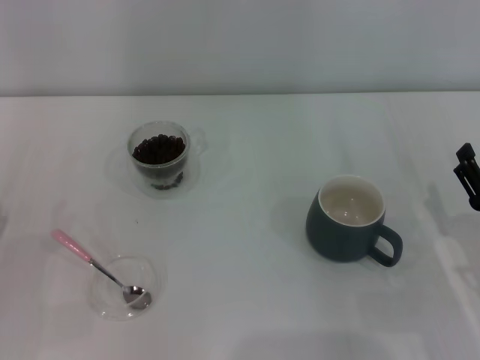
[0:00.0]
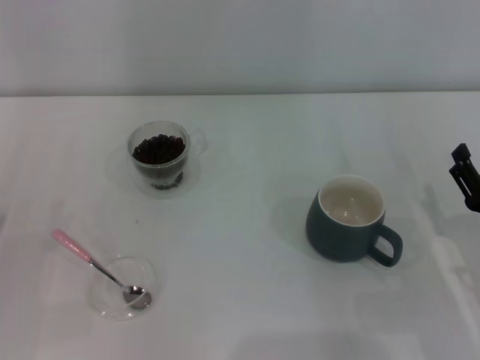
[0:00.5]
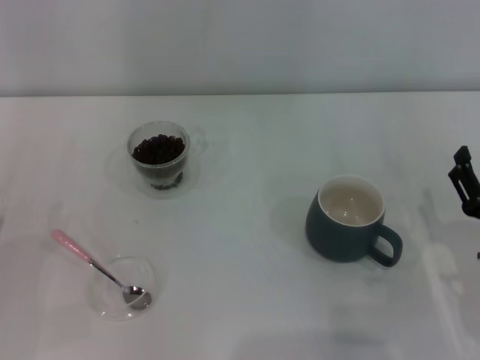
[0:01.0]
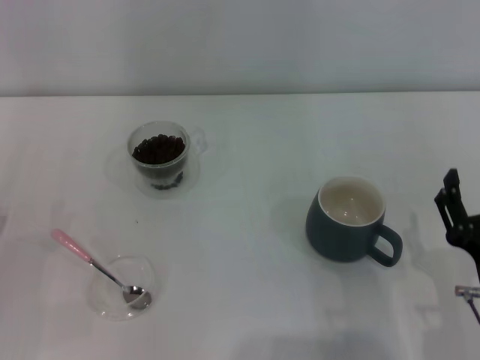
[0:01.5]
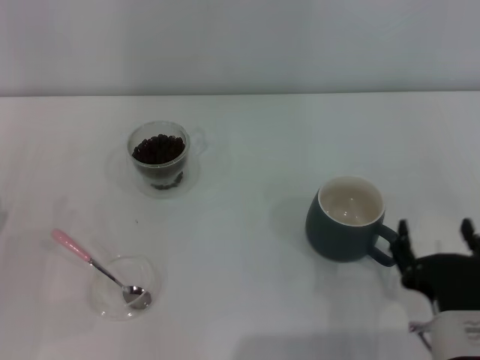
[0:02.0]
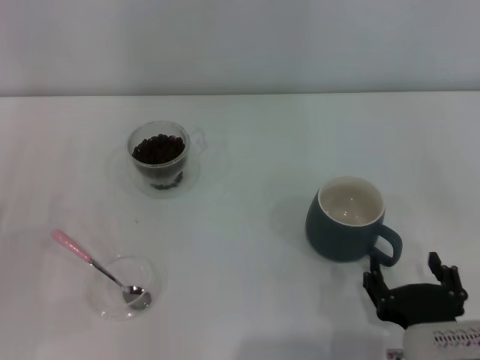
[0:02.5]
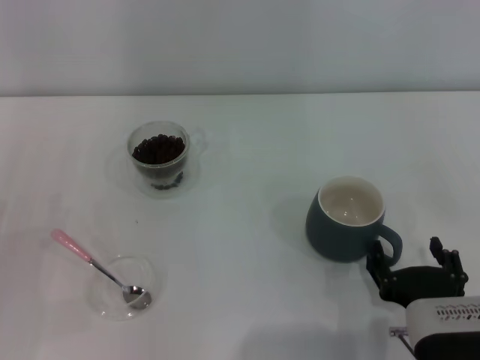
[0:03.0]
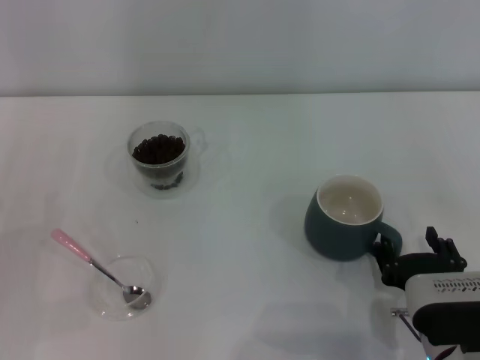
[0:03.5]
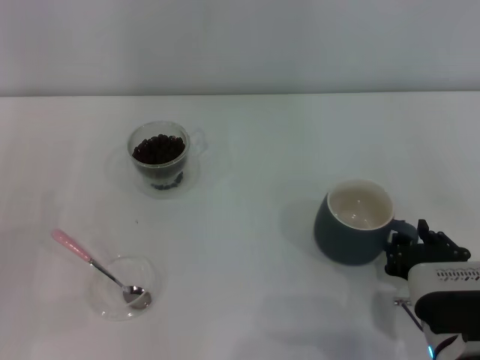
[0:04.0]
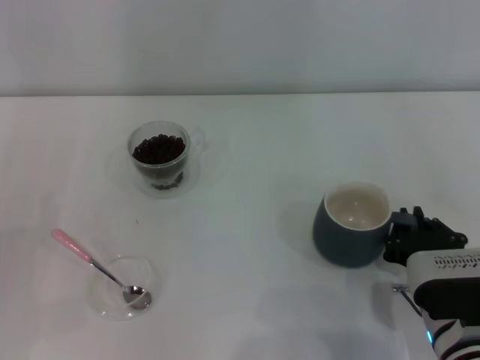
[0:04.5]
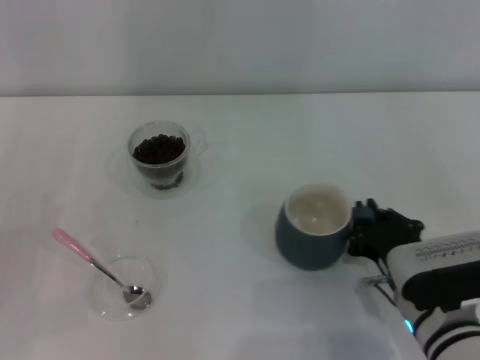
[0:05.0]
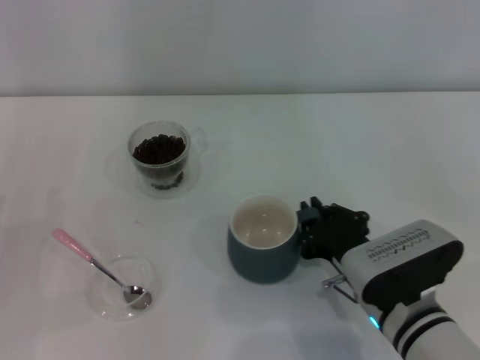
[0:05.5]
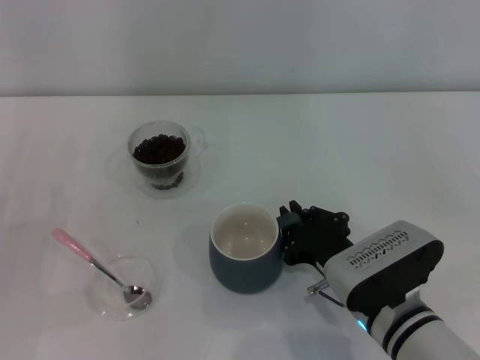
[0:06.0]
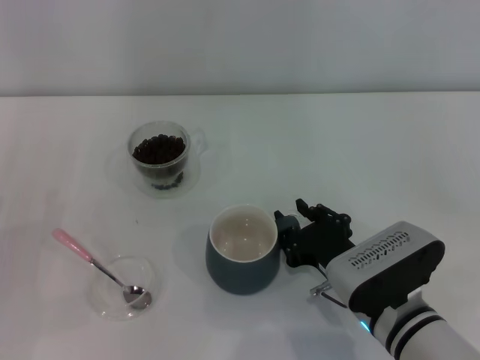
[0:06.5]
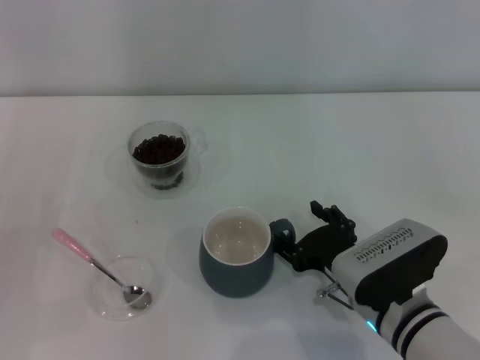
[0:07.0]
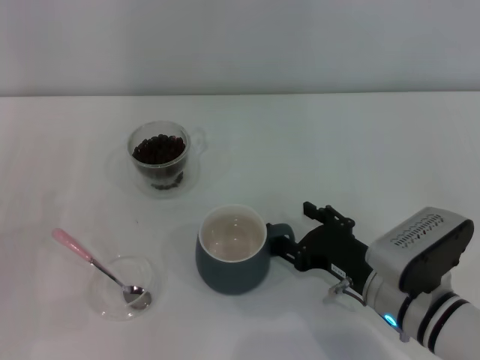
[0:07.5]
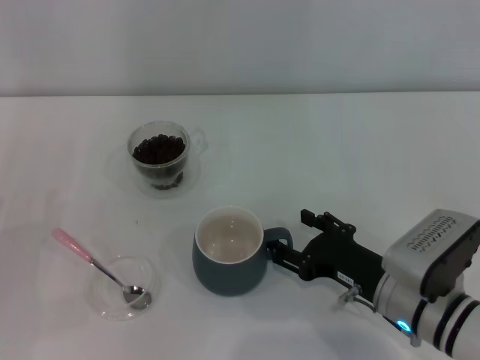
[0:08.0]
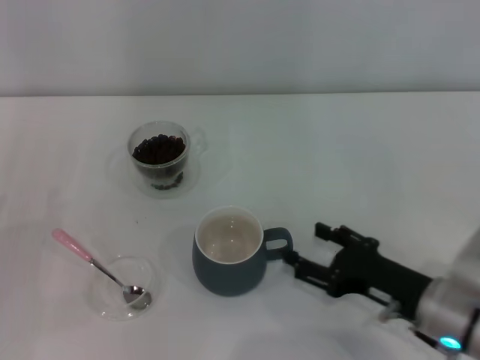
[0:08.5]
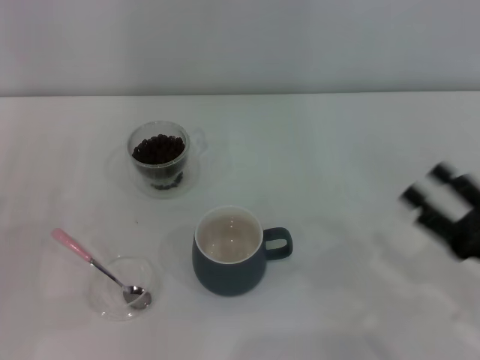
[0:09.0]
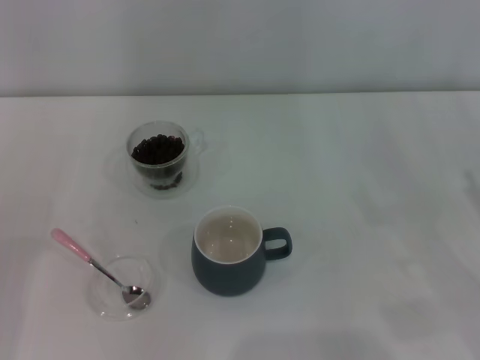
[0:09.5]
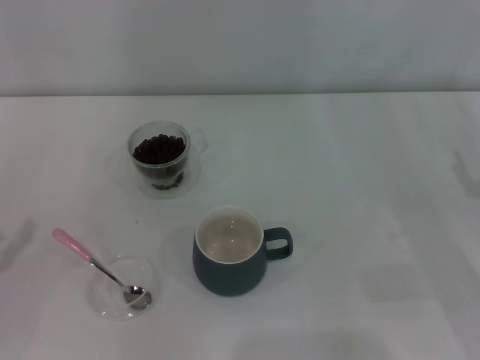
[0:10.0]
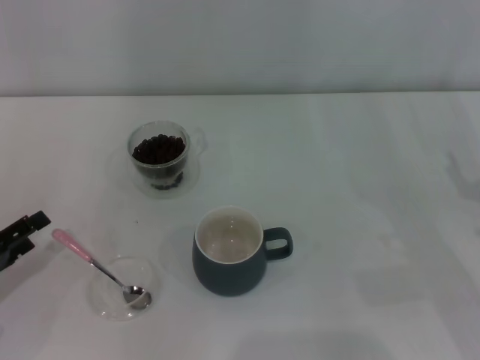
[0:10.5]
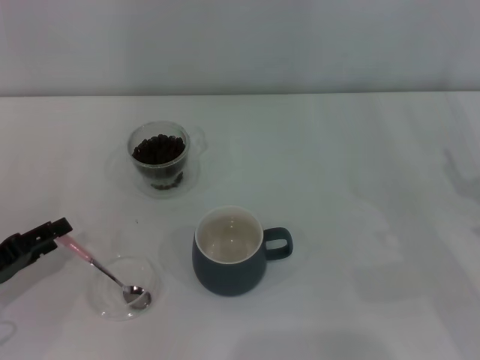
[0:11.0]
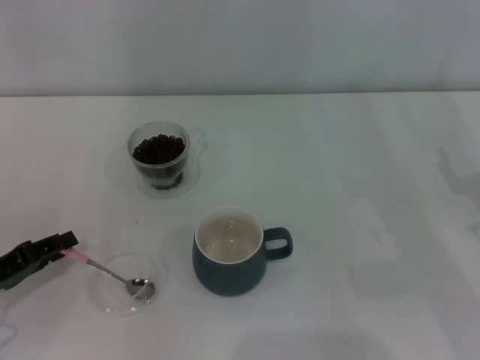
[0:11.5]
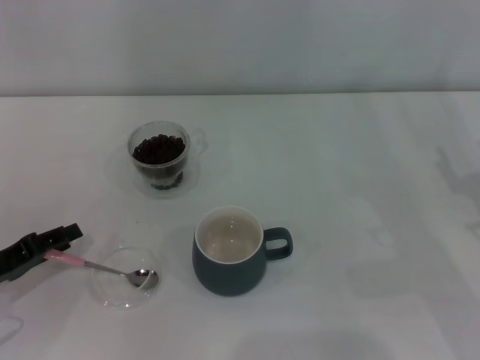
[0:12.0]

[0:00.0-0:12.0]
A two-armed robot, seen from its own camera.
Task of the whole recording: Use a pink spoon to take out the coffee beans from the glass and pour them into the gray cup.
0:00.0 to 0:02.0: The right gripper heads to the left and backward, covering about 15 cm.
0:02.0 to 0:04.0: The right gripper shifts by some 5 cm, and closes up.
0:04.0 to 0:06.0: The right gripper shifts by roughly 5 cm.
0:06.0 to 0:08.0: The right gripper opens its fingers.
0:08.0 to 0:10.0: The right gripper heads to the right, covering roughly 15 cm.
0:10.0 to 0:12.0: The left gripper shifts by approximately 5 cm, and closes up.

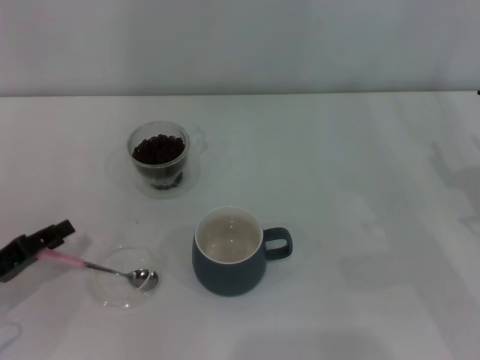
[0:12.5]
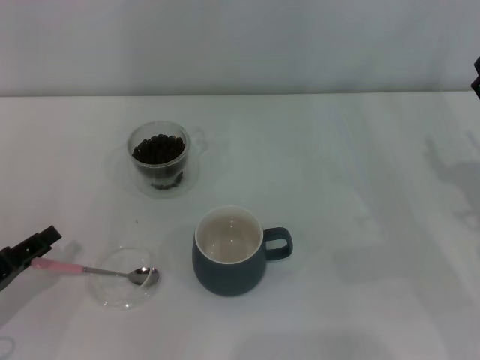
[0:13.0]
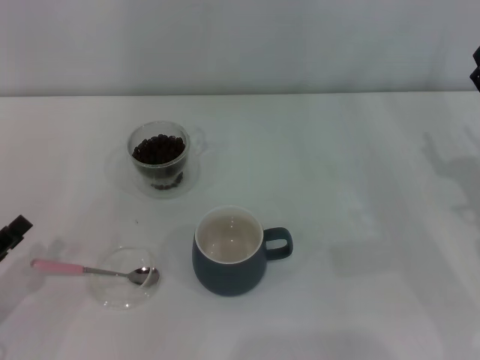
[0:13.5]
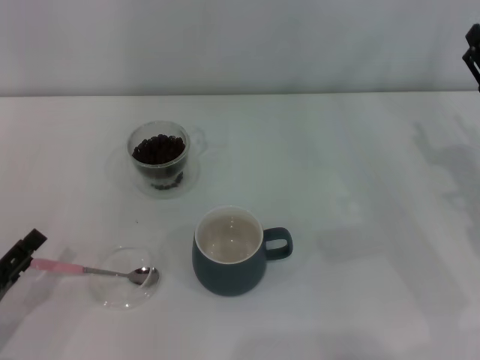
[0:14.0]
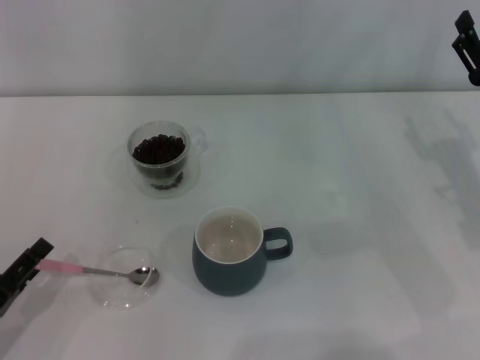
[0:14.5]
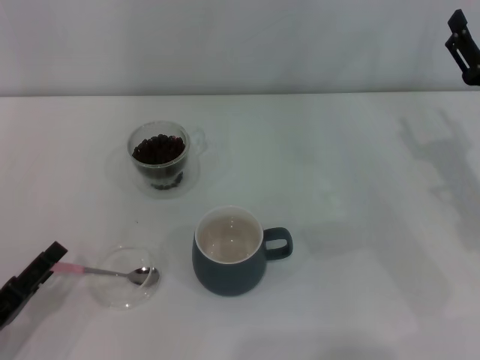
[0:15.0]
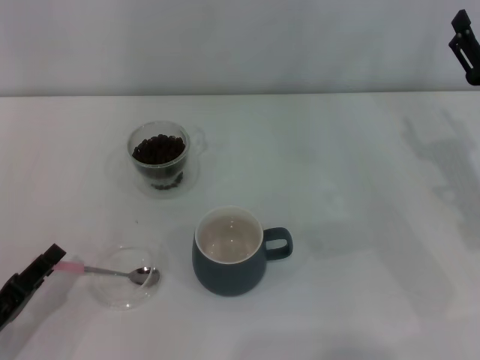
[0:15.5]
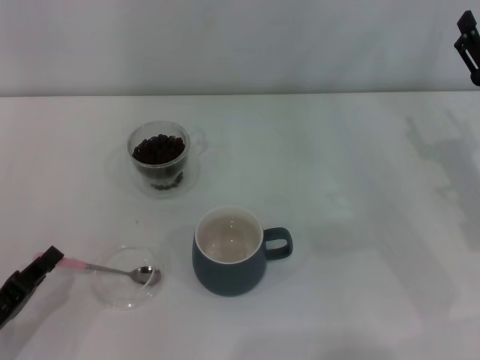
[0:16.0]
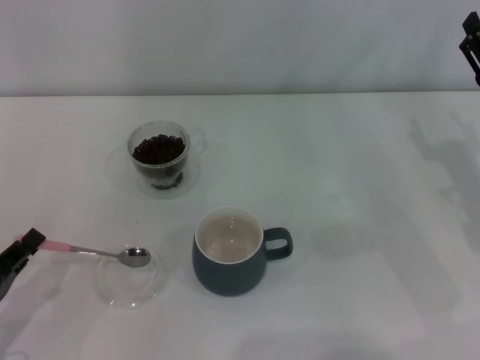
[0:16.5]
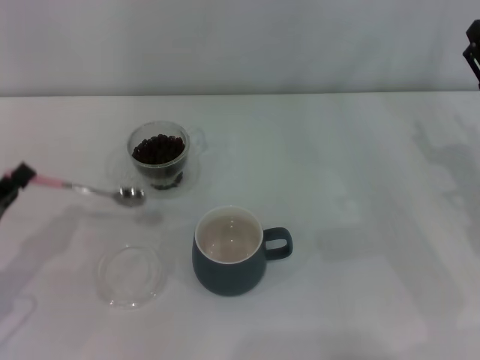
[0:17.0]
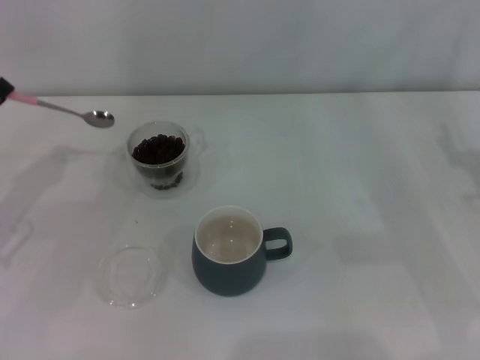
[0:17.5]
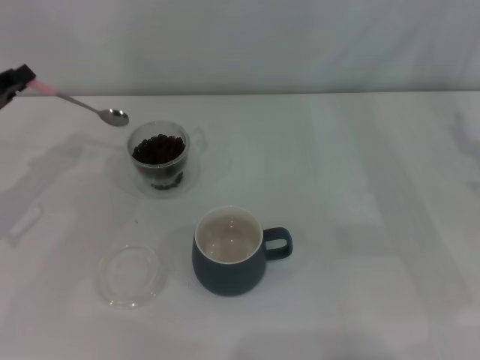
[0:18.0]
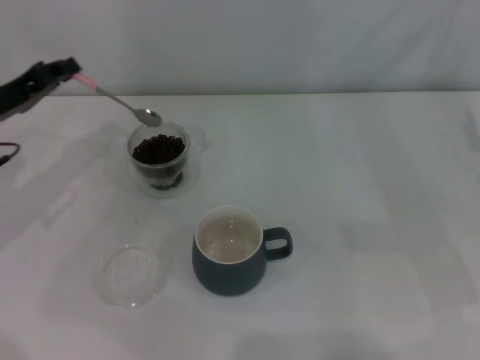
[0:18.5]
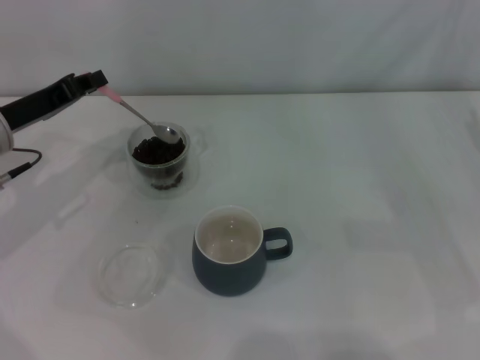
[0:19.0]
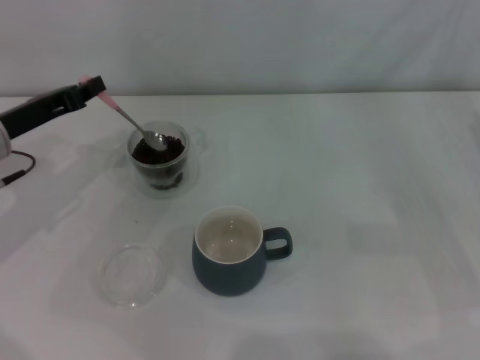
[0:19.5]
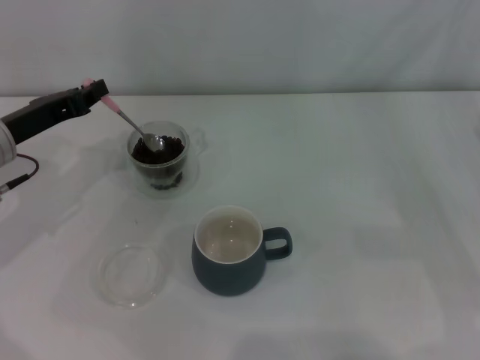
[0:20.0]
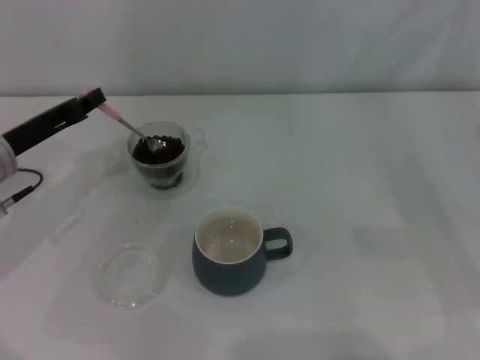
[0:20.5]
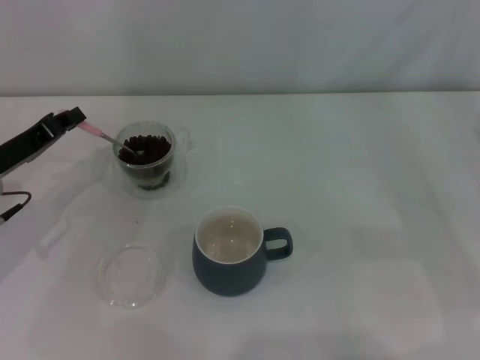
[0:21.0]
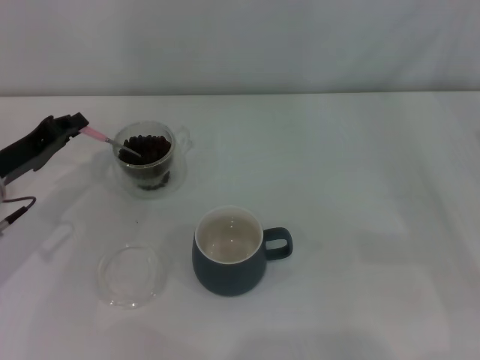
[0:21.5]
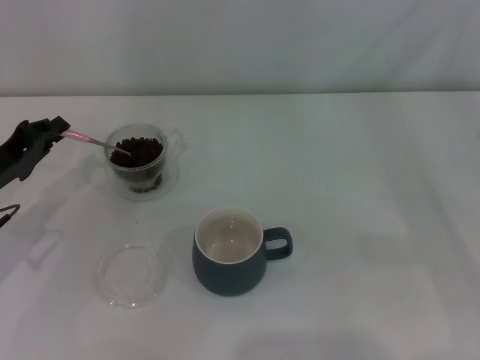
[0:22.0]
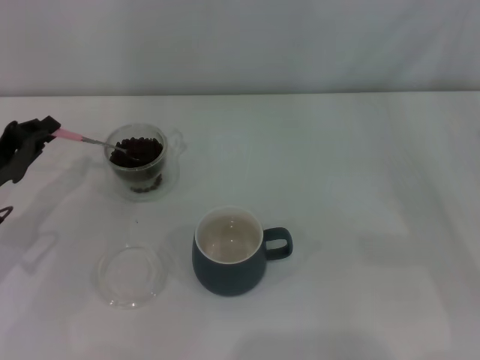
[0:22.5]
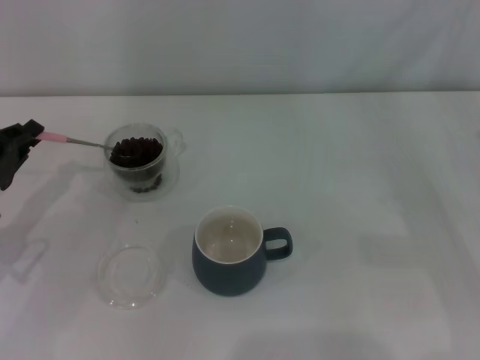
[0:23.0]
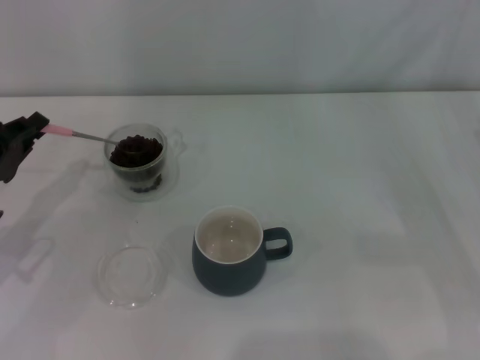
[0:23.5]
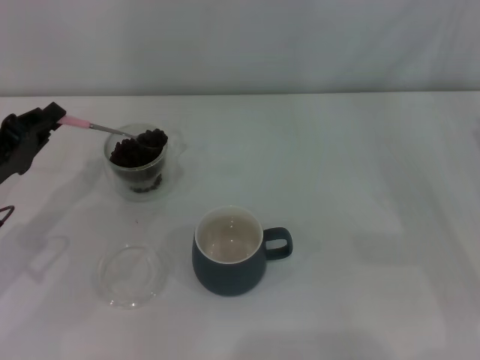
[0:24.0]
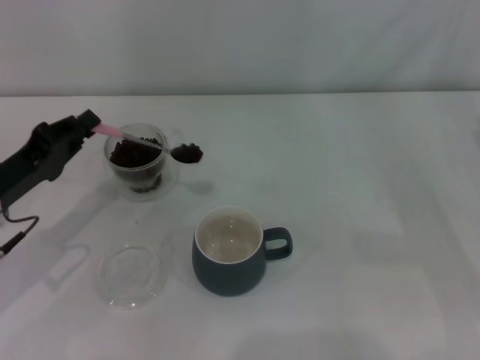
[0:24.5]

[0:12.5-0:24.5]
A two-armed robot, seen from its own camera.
Task of the whole recording: Use a pink spoon to take out the coffee beans from the glass and pour them into the gray cup.
Step, 0:12.5 to 0:16.5: Pick up the spoon with the right gripper.
0:12.5 to 0:14.5: The left gripper shifts roughly 5 cm backward, and opens; the right gripper moves roughly 5 cm.
0:14.5 to 0:16.5: The left gripper closes.
0:16.5 to 0:18.5: The left gripper is displaced forward and upward by roughly 25 cm.
0:18.5 to 0:20.5: The grippers move only a little.
0:20.5 to 0:22.5: The left gripper shifts by about 5 cm.
0:22.5 to 0:24.5: The grippers move only a little.

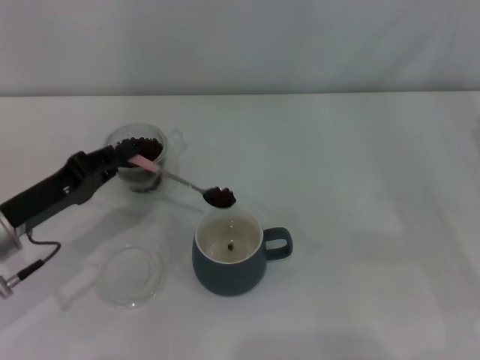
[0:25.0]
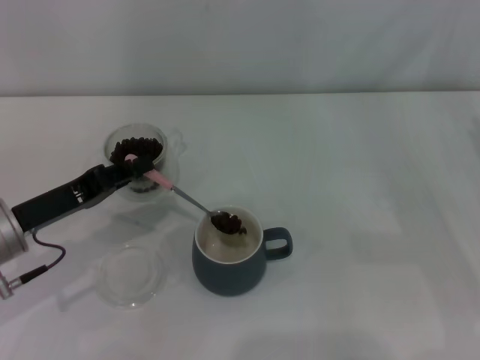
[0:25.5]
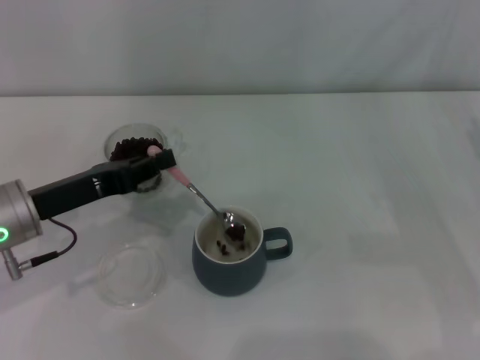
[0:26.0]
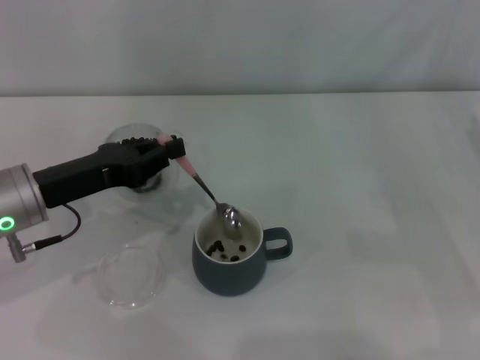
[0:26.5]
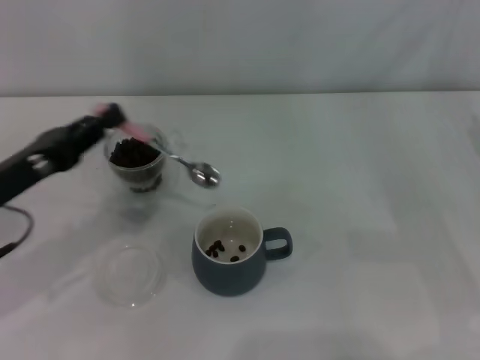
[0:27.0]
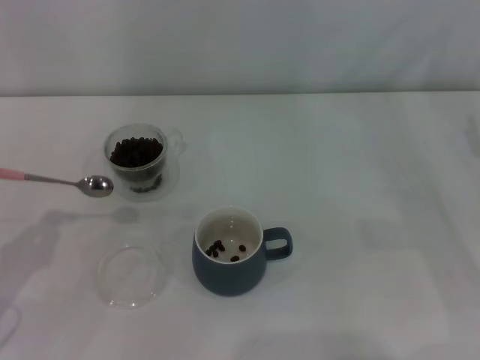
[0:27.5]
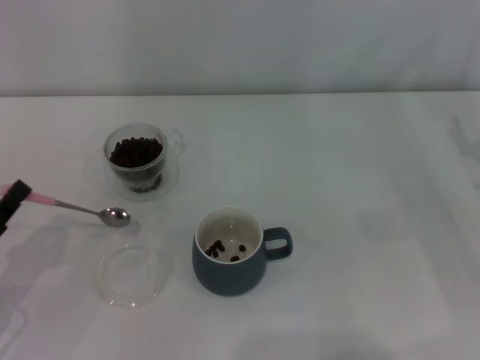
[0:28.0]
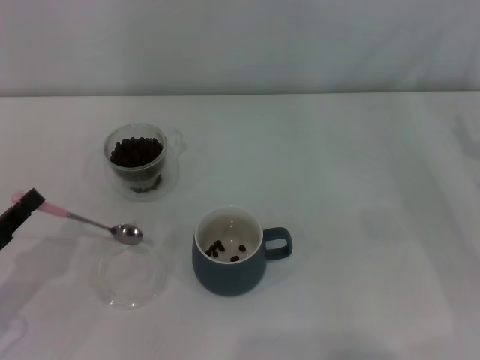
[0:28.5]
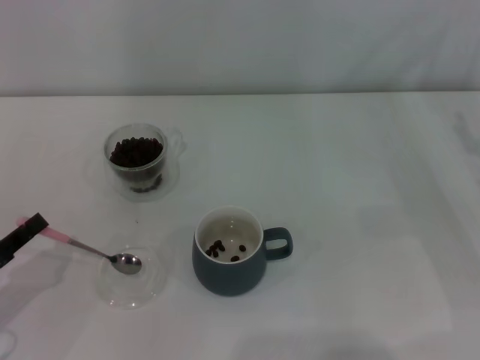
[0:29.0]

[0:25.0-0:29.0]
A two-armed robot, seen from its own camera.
Task of the whole recording: Use a pink spoon to take out the coffee beans from the glass and pour them into the gray cup.
0:27.0 to 0:29.0: The left gripper heads downward, backward and to the left, covering approximately 15 cm.
